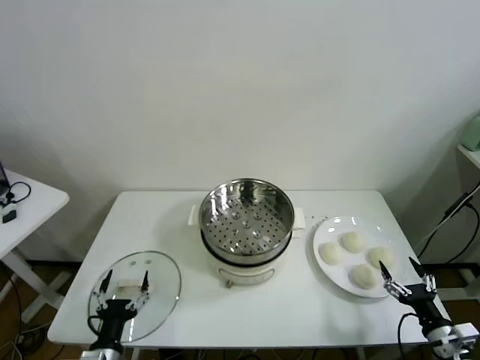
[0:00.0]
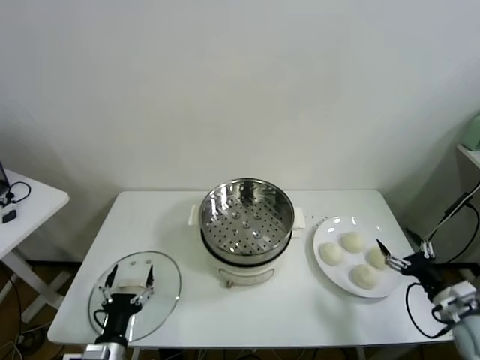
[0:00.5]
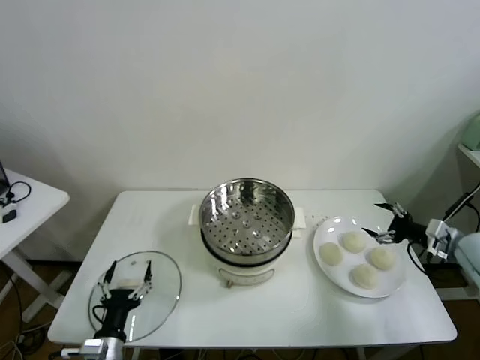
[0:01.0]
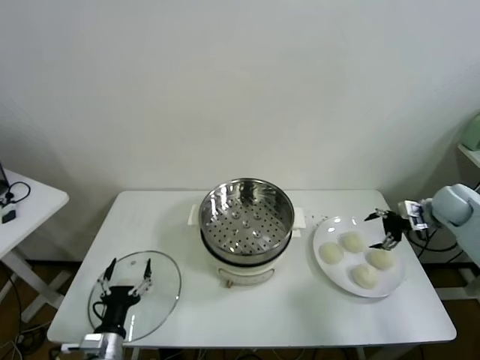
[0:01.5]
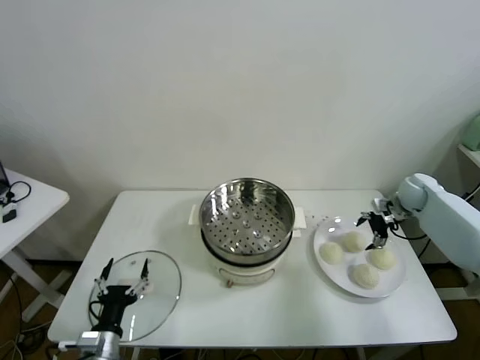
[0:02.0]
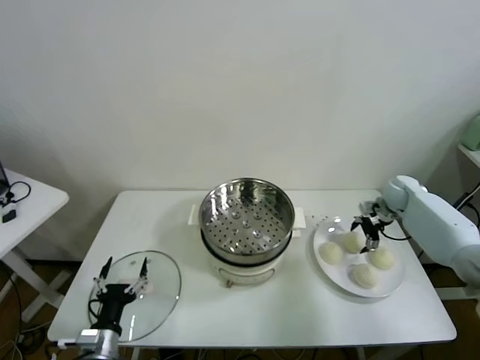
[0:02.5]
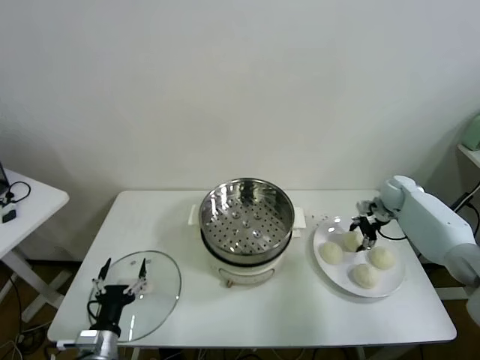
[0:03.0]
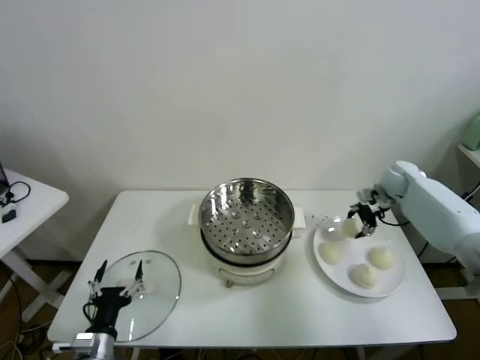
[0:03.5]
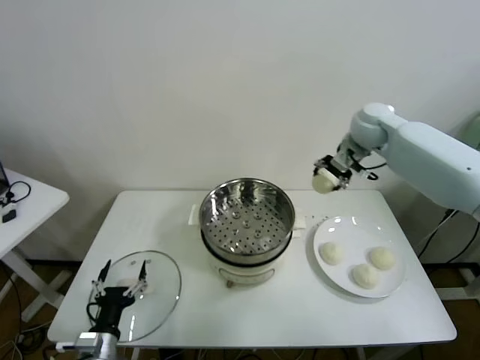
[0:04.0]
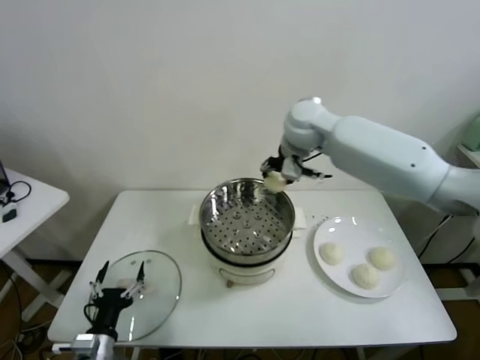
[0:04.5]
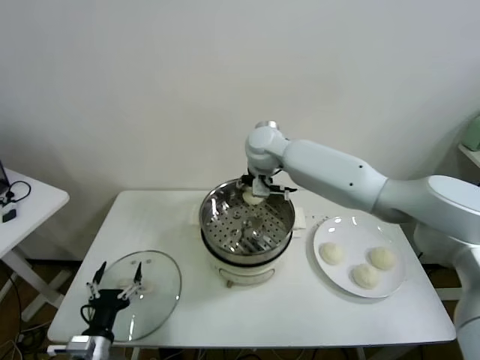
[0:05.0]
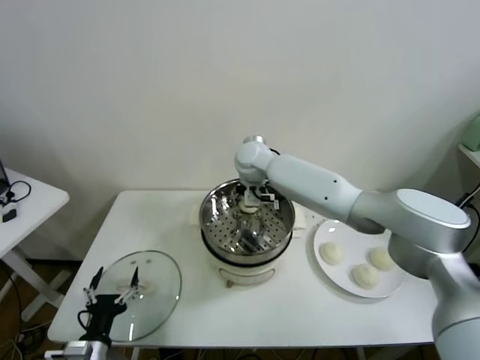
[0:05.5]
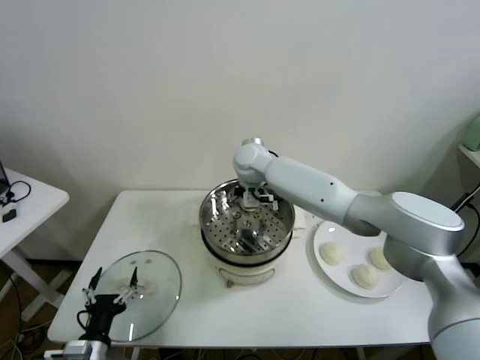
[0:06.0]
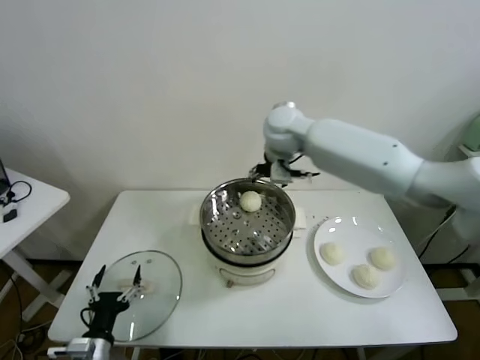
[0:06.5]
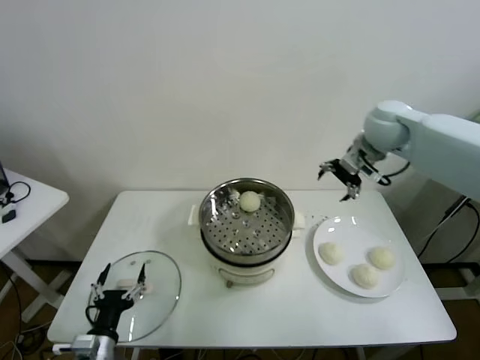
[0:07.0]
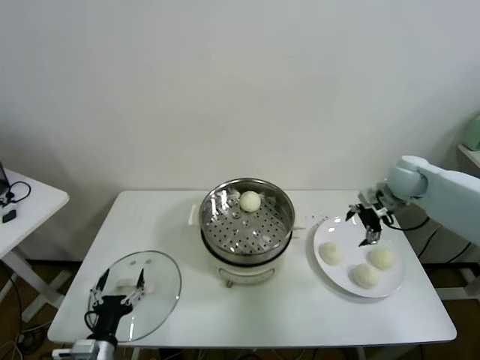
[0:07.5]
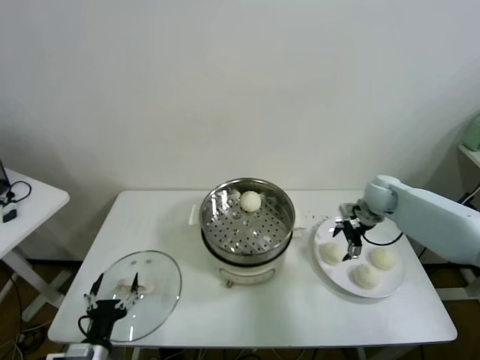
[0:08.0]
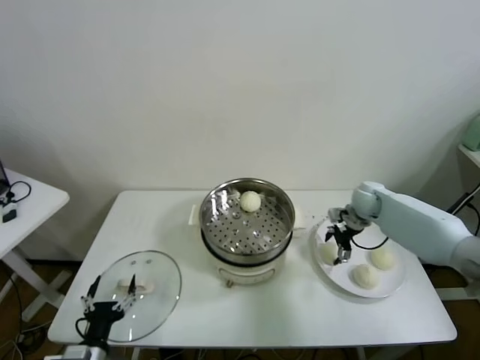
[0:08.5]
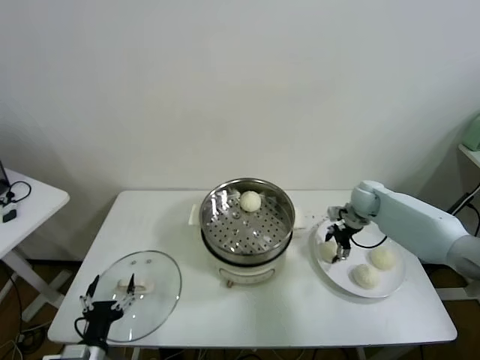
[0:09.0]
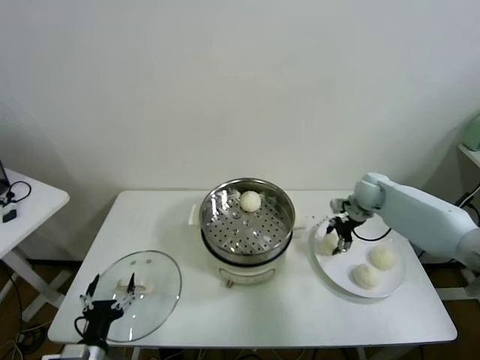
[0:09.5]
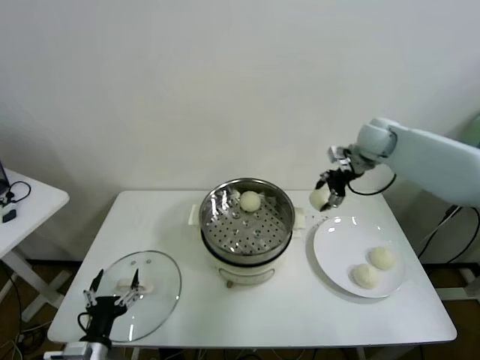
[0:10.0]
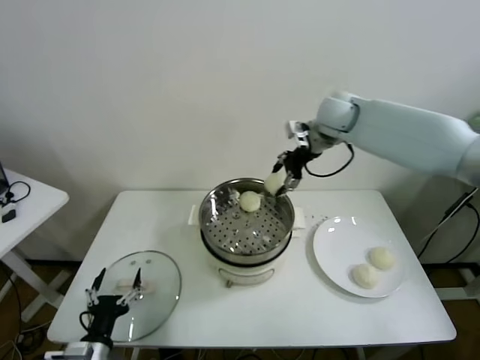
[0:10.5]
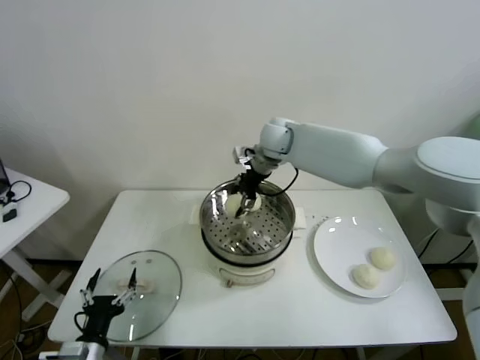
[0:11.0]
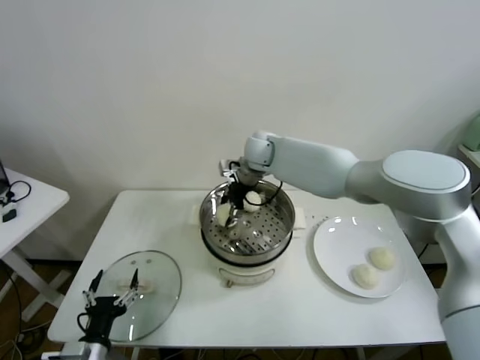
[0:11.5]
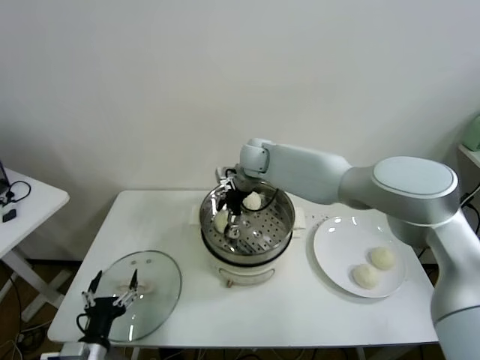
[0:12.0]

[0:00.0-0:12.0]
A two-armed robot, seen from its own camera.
Task of the whole recording: take steamed baozi put them in steamer.
Step, 0:00.0 to 0:02.5: Grasp the baozi in the plate with right gripper.
Step, 0:03.0 to 0:06.0: Place the baozi on the steamer with right gripper.
Step, 0:06.5 to 0:09.0: Grasp the baozi in the plate with right gripper.
0:02.0 to 0:04.0: The right gripper moves upward and to the left, about 30 cm, and closes its fingers.
0:04.0 to 0:06.0: The right gripper heads to the left and downward, covering approximately 25 cm, and opens.
0:06.0 to 0:08.0: The right gripper shifts roughly 35 cm to the right.
0:08.0 to 0:10.0: The right gripper is displaced upward by about 15 cm, and closes up.
0:10.0 to 0:12.0: The right gripper goes about 30 cm to the left, and opens.

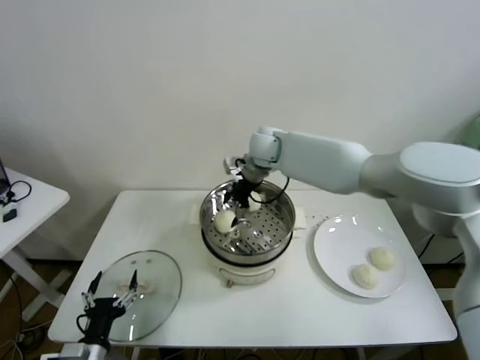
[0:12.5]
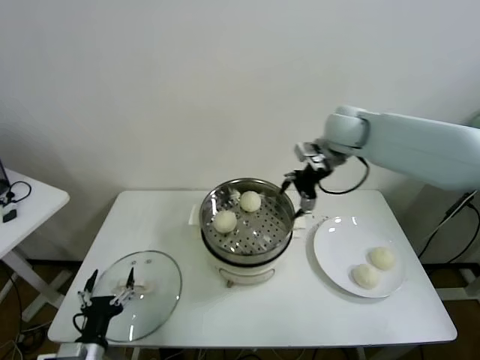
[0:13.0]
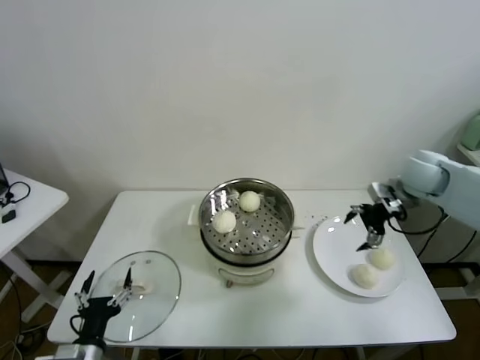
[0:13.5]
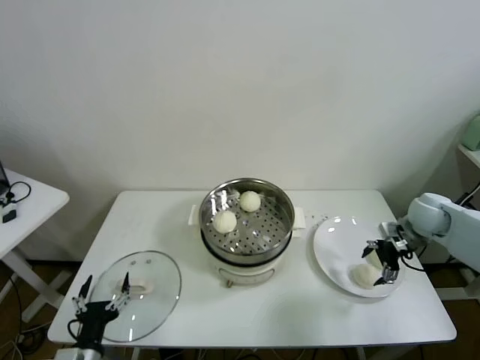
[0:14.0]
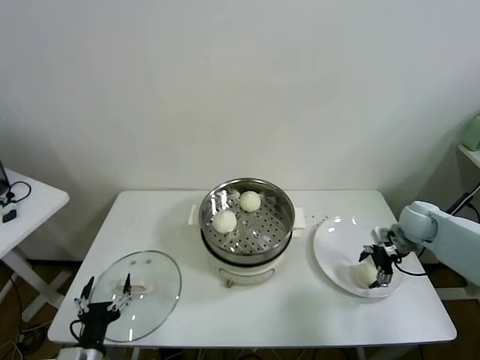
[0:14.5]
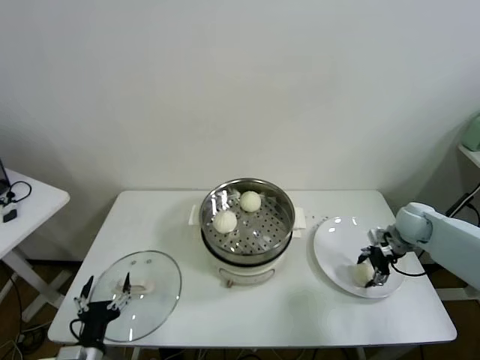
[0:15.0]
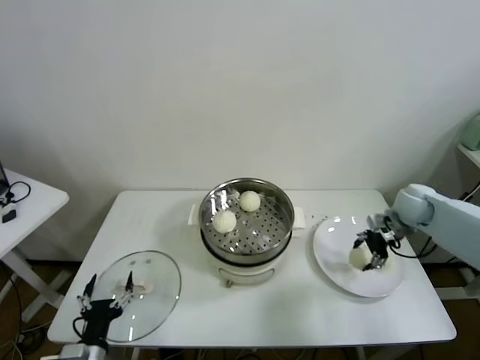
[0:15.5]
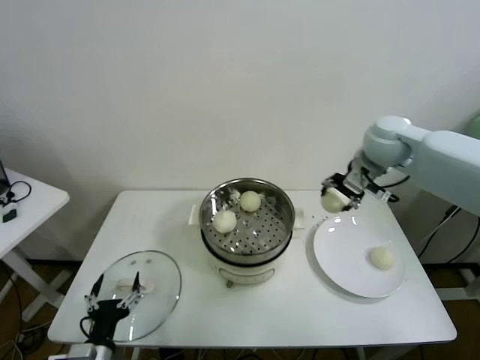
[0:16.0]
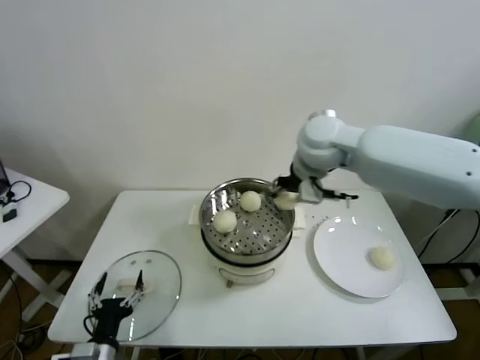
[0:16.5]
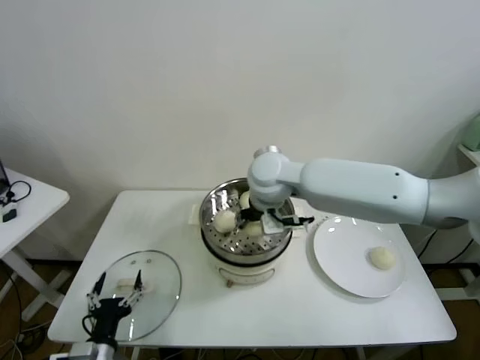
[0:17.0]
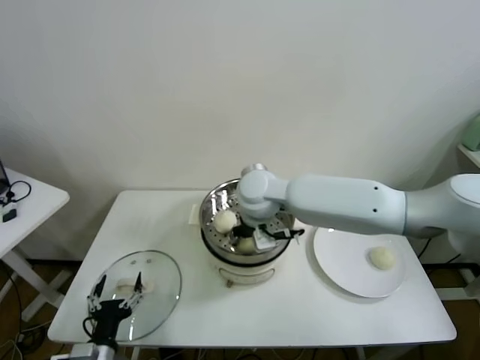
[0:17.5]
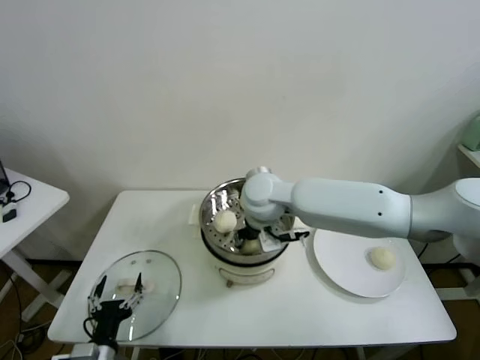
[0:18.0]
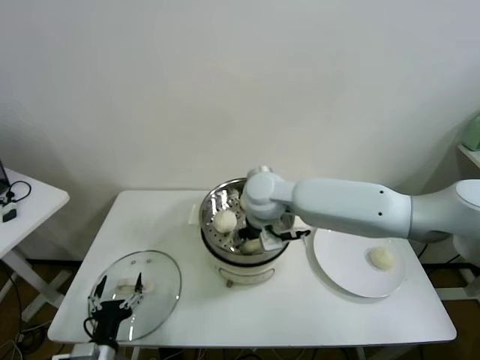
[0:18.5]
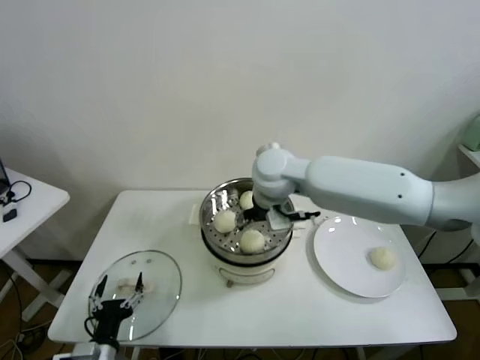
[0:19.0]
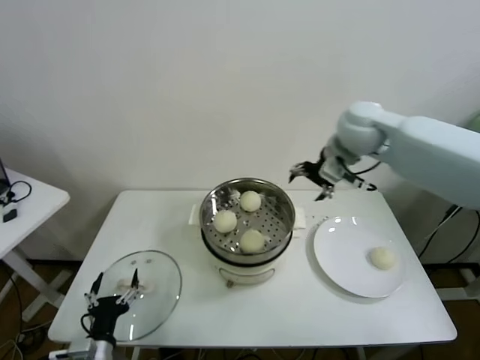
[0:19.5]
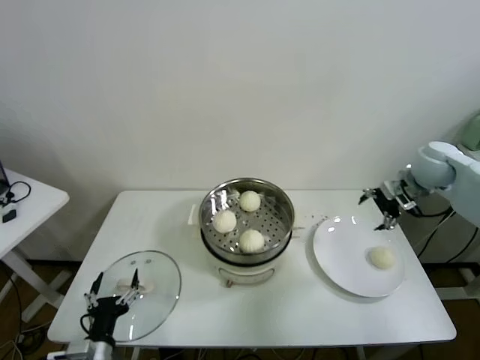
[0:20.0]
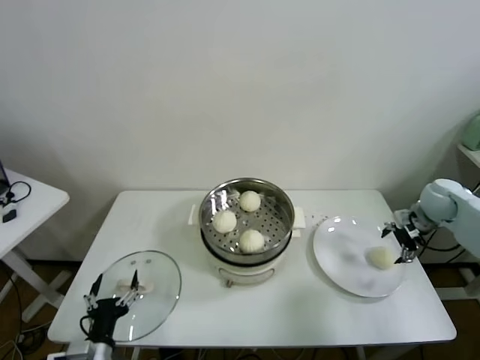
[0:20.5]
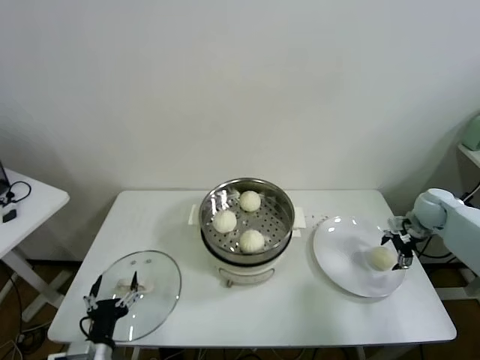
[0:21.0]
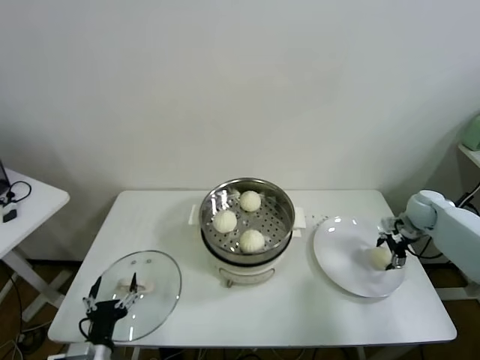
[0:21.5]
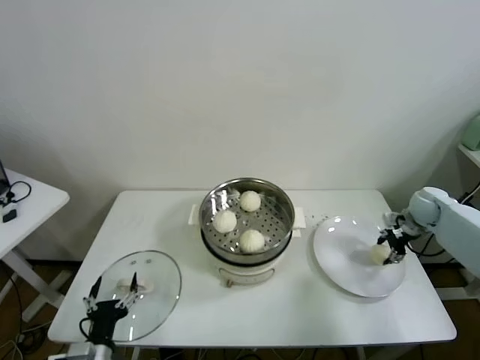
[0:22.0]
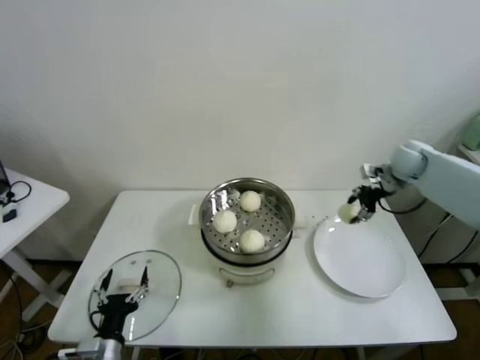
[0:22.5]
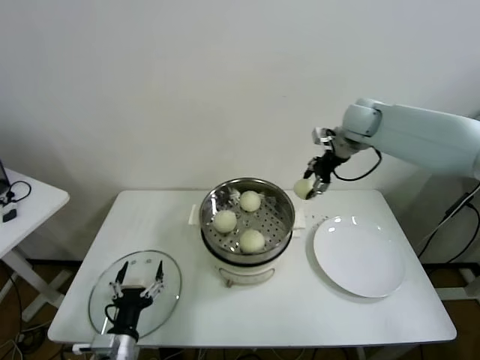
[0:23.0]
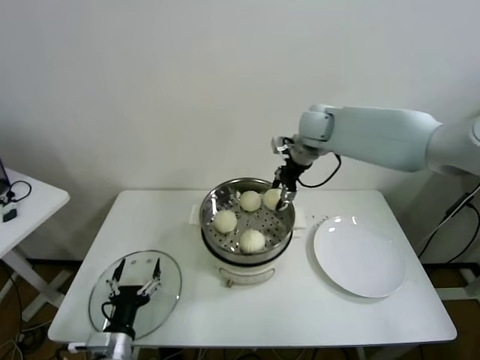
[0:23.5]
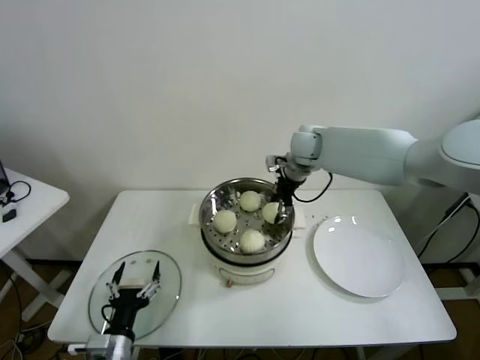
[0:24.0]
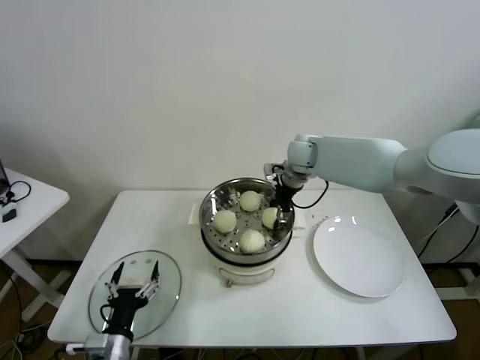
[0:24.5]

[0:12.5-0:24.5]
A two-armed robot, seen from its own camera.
Task of the whole recording: take steamed baozi put them in steamer.
Step, 0:12.5 to 0:14.5: Grasp the baozi in the plate with right gripper.
Step, 0:15.0 to 0:18.5: Place the baozi on the steamer with right gripper.
Step, 0:19.0 to 0:21.5: Grasp the baozi in the plate with right gripper.
0:12.5 to 0:14.5: The right gripper travels to the right and downward by some 40 cm.
0:14.5 to 0:16.5: The right gripper moves to the left and upward, approximately 40 cm, and closes its fingers.
0:16.5 to 0:18.5: The right gripper shifts approximately 15 cm downward and to the left, and opens its fingers.
0:18.5 to 0:20.5: The right gripper shifts approximately 40 cm to the right.
0:20.5 to 0:22.5: The right gripper moves forward, to the left and upward, roughly 10 cm, and closes.
0:22.5 to 0:24.5: The right gripper goes approximately 25 cm to the left.

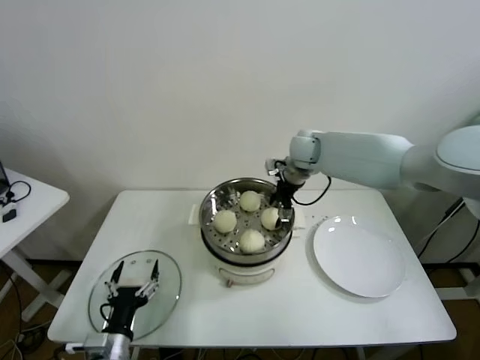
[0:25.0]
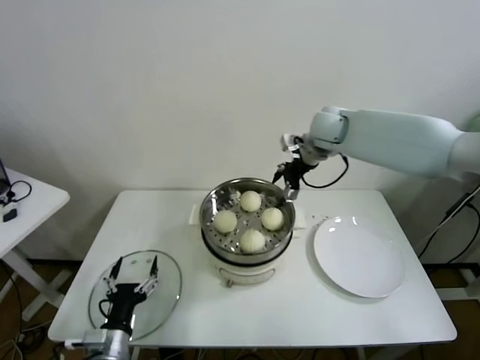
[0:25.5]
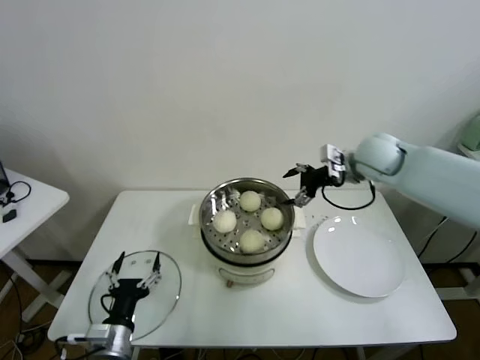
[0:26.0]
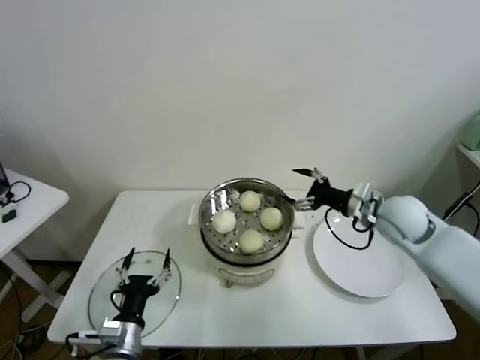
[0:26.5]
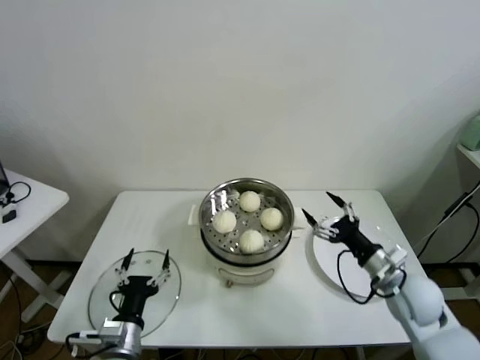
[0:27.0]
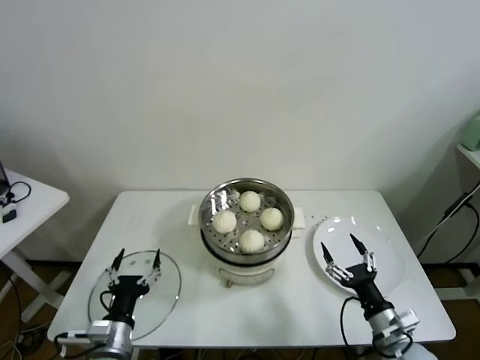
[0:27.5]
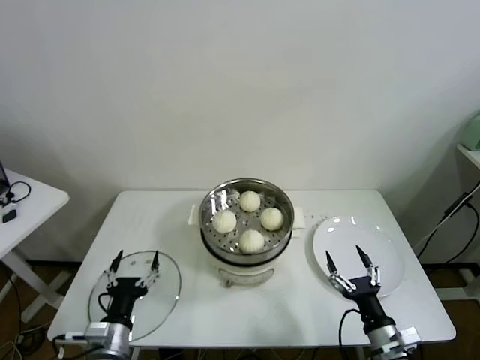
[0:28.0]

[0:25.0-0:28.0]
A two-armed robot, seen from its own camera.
Task of the whole recording: take steamed baozi put them in steamer.
0:25.0 to 0:26.5: The right gripper moves to the right and backward, about 25 cm.
0:26.5 to 0:28.0: The right gripper is displaced backward and downward by about 35 cm.
